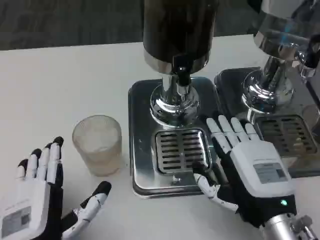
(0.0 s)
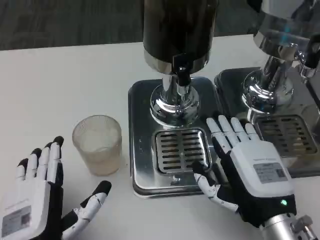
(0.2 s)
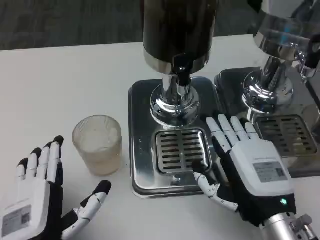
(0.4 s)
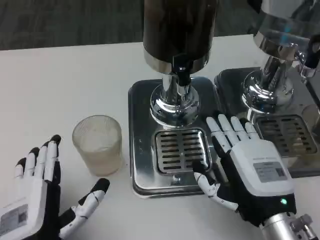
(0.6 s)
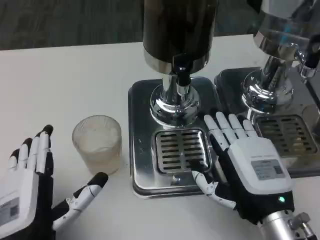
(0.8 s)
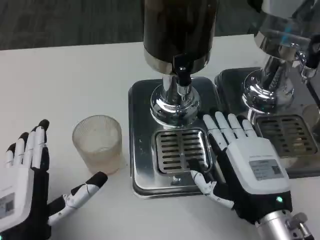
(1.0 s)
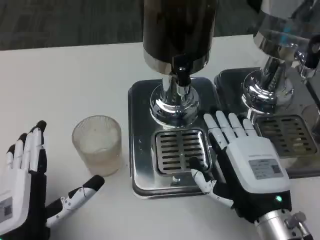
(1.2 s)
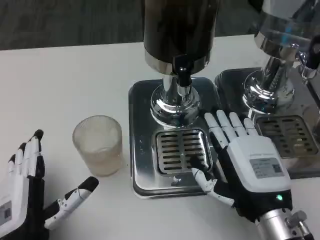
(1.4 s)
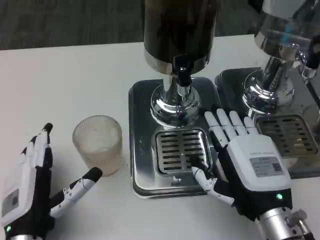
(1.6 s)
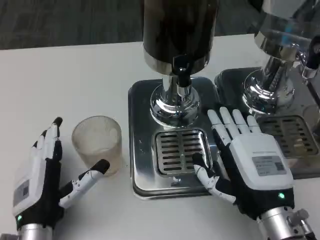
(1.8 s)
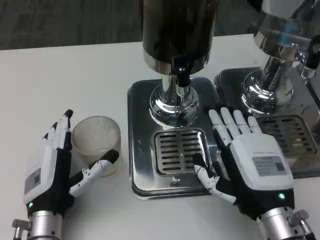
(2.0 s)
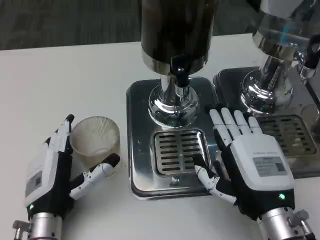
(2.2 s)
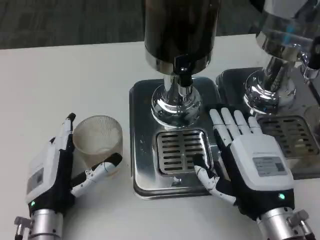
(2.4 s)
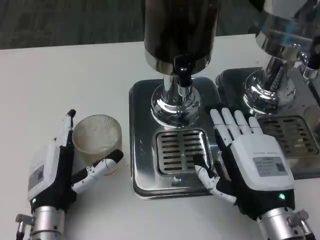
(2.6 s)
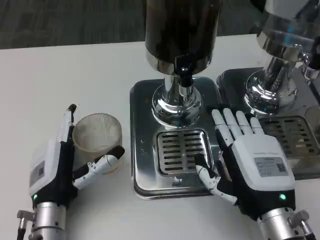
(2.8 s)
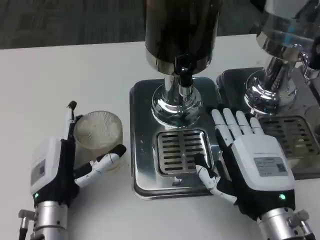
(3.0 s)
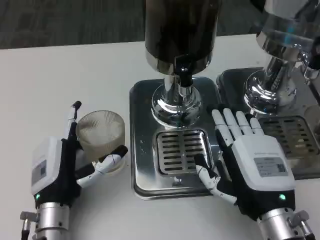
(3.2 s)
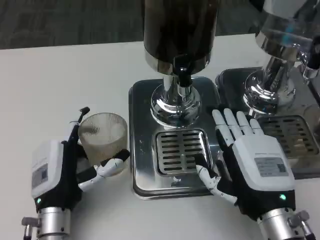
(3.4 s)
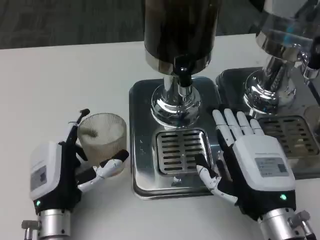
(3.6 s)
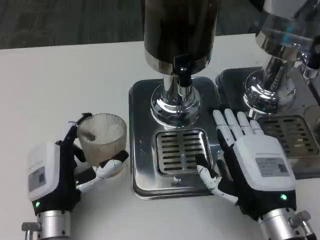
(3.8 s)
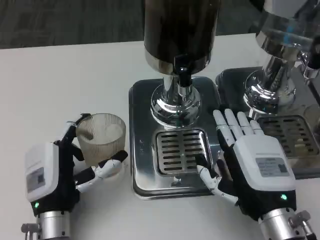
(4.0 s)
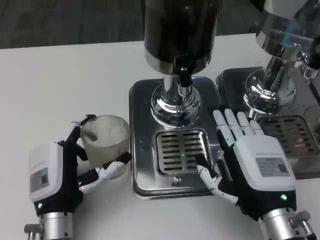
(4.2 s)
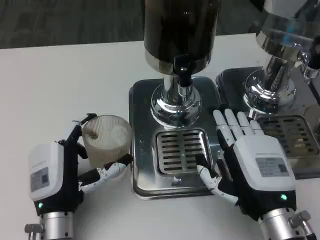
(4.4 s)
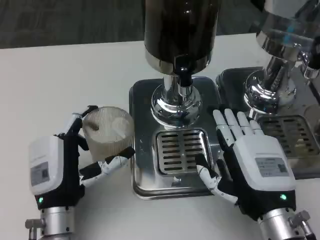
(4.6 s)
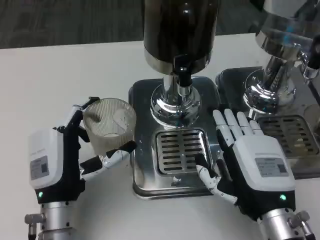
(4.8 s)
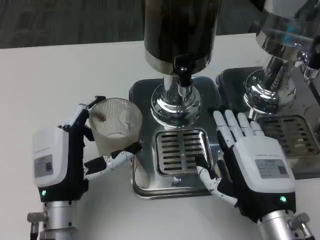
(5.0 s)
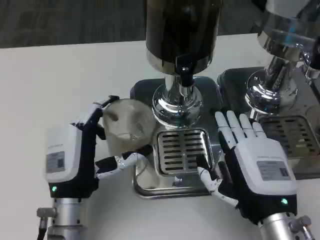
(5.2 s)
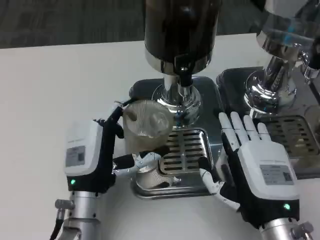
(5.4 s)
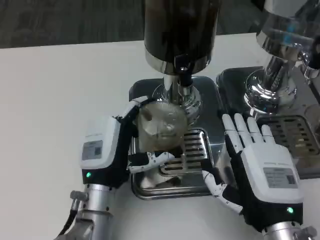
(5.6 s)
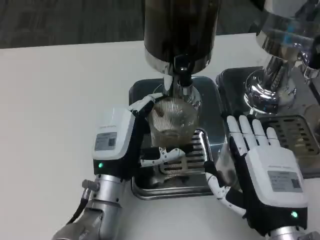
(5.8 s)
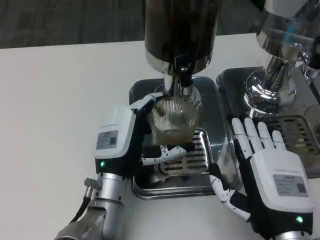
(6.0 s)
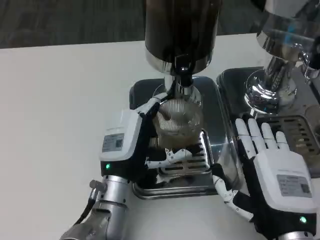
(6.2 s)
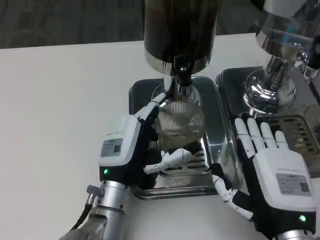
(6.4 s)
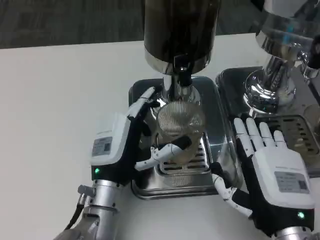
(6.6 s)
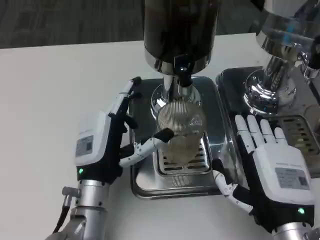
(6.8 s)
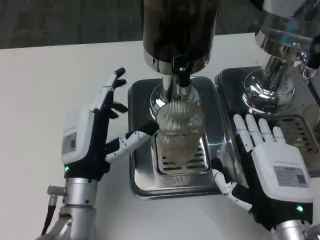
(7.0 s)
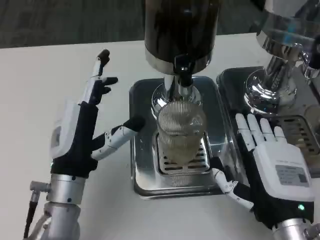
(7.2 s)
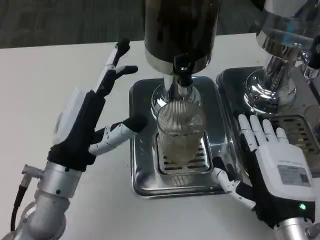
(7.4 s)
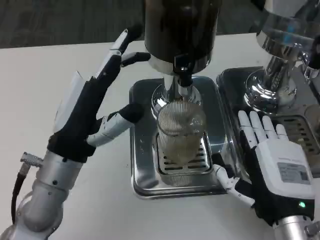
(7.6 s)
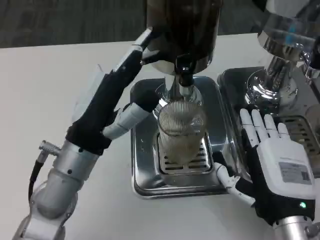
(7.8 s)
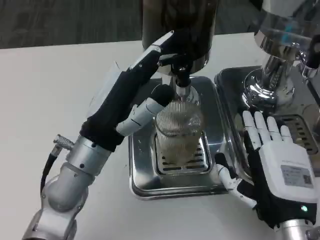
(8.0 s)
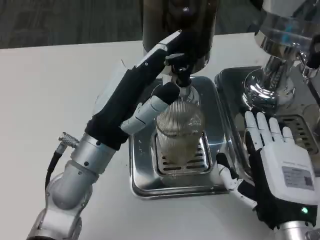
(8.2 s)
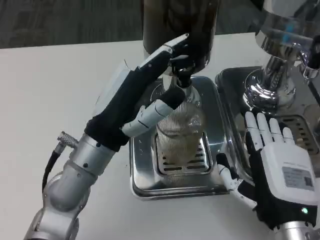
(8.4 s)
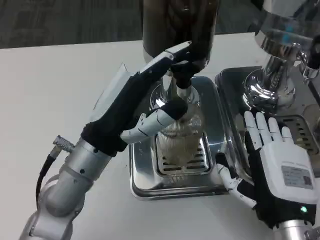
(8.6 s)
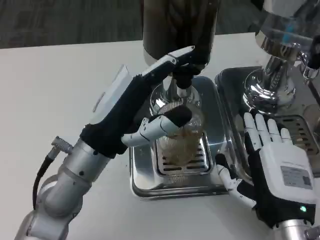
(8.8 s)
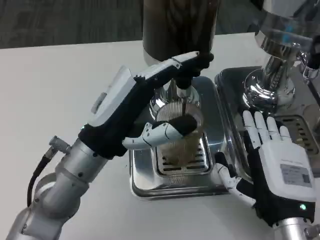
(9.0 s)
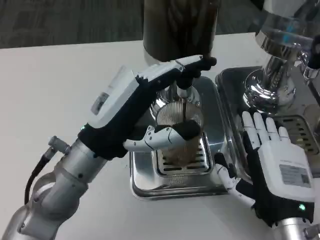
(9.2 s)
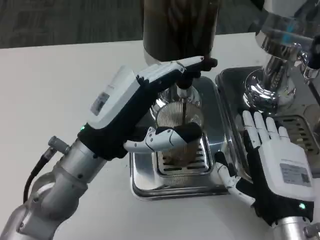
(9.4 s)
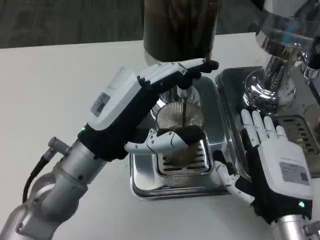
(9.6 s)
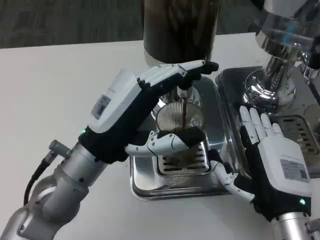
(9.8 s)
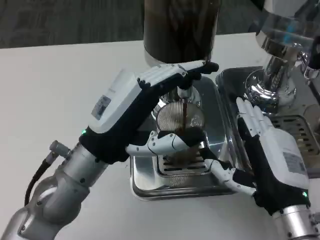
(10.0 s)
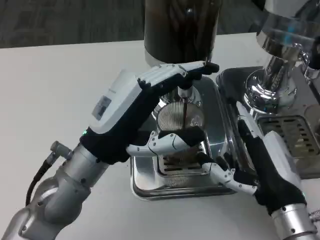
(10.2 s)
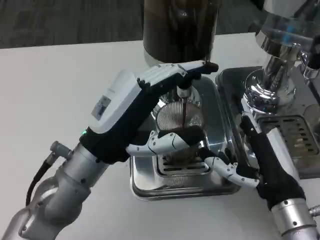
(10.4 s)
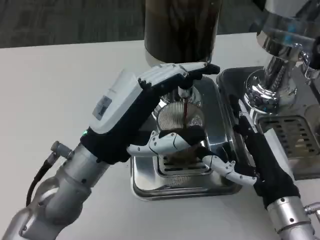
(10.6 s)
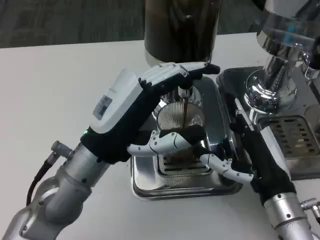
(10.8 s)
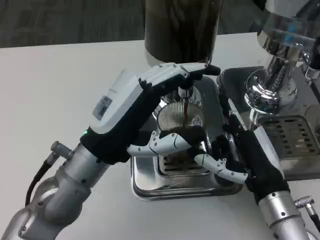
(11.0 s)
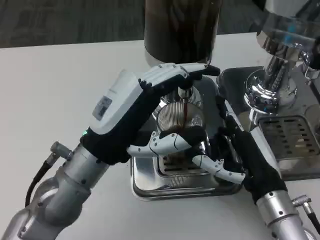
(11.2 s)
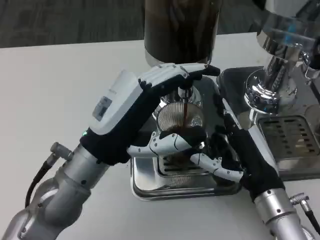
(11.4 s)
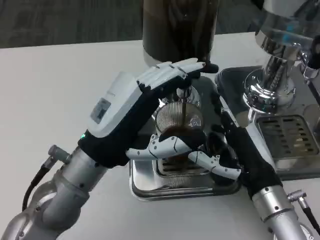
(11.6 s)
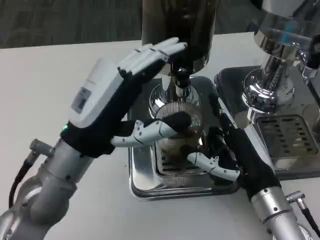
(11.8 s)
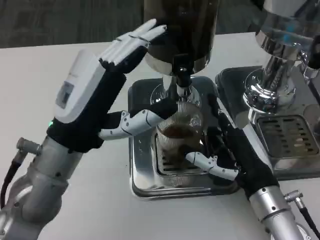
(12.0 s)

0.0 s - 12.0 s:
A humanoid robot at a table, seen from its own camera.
Task of the whole recording: Grasp the cup under the faucet to collect the drink, then remove the cup.
0.0 s - 1.6 s: The left hand travels forward by some 5 cm.
1.6 s - 3.0 s: The left hand moves forward, about 5 cm.
3.0 s - 4.4 s: The hands stay close to where they were, moving slightly.
4.4 s - 6.0 s: The left hand travels to the right and forward by roughly 10 cm.
6.0 s - 7.6 s: The left hand heads upward and to the left, covering roughly 10 cm.

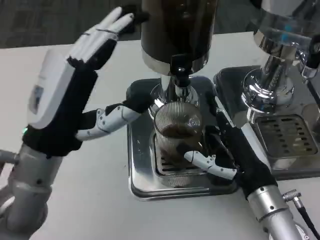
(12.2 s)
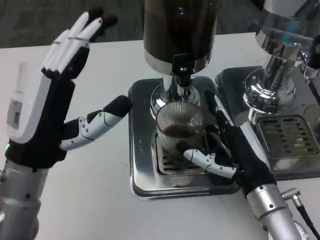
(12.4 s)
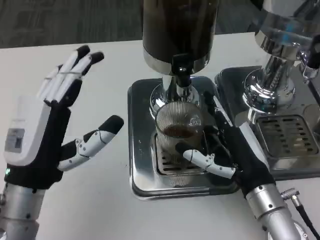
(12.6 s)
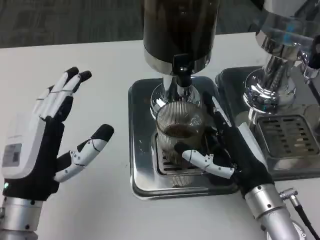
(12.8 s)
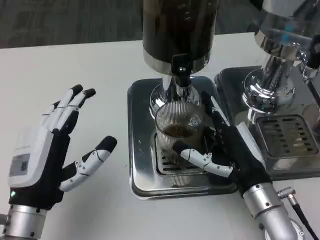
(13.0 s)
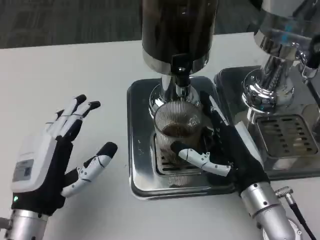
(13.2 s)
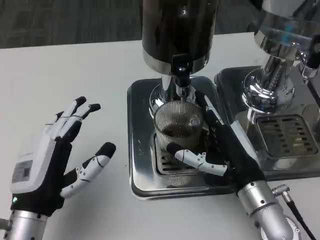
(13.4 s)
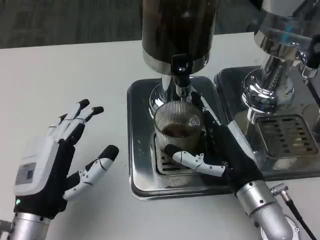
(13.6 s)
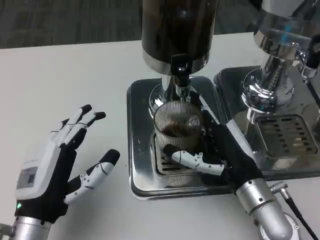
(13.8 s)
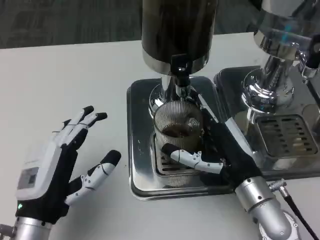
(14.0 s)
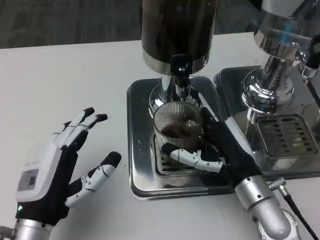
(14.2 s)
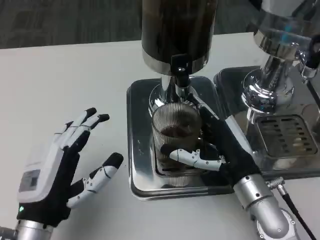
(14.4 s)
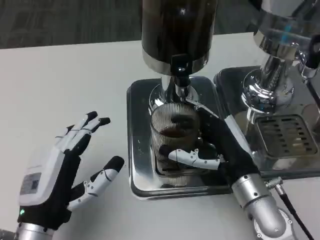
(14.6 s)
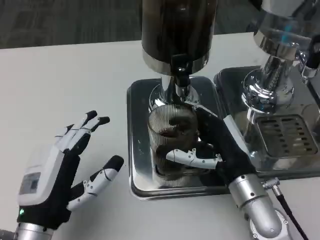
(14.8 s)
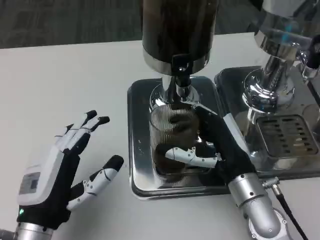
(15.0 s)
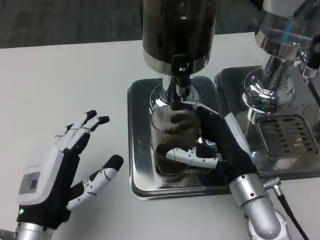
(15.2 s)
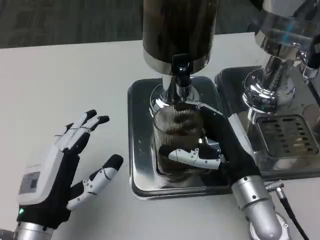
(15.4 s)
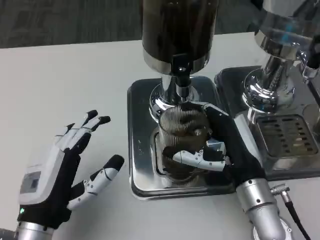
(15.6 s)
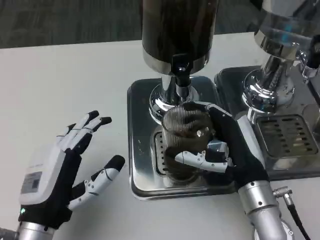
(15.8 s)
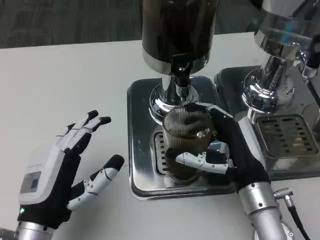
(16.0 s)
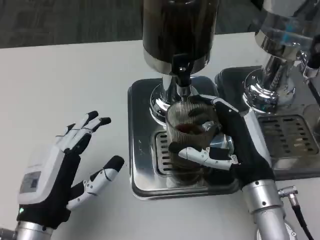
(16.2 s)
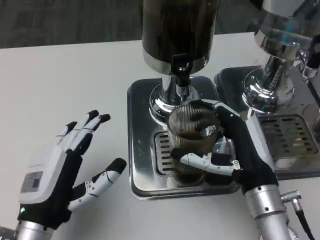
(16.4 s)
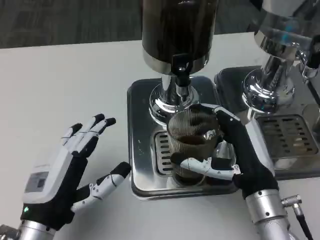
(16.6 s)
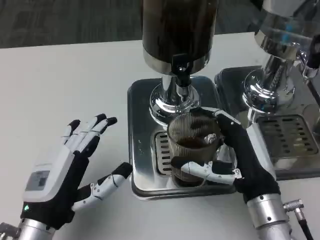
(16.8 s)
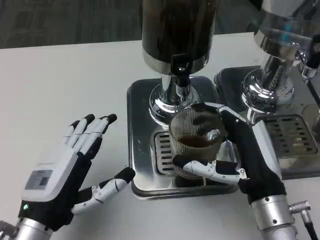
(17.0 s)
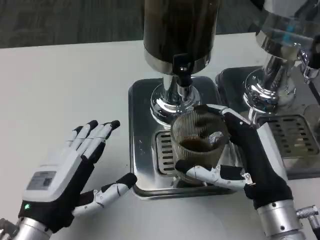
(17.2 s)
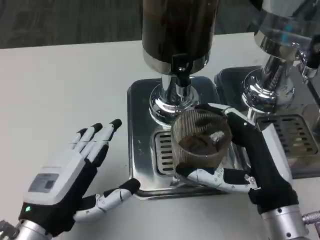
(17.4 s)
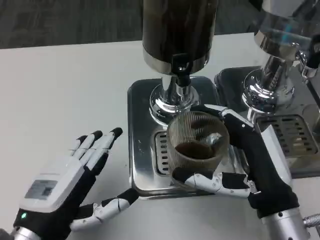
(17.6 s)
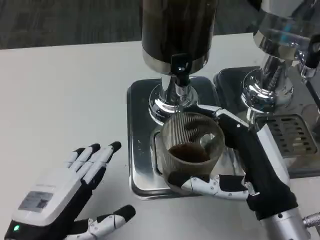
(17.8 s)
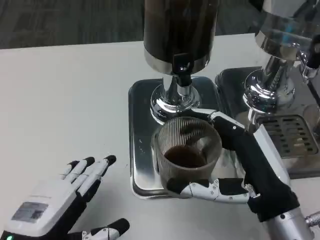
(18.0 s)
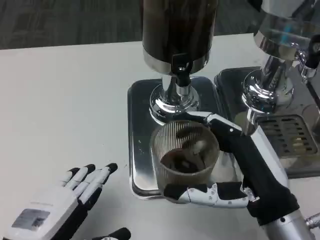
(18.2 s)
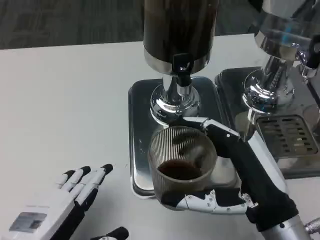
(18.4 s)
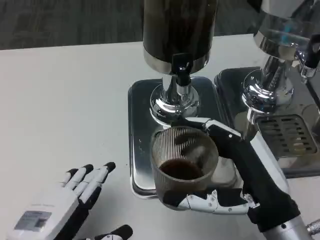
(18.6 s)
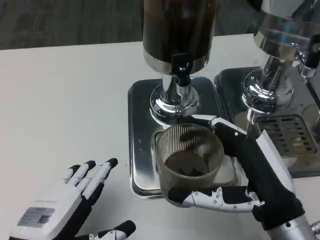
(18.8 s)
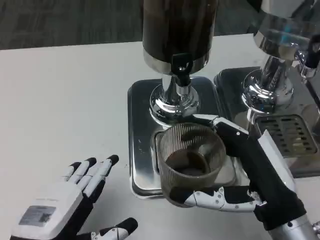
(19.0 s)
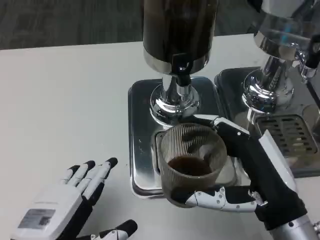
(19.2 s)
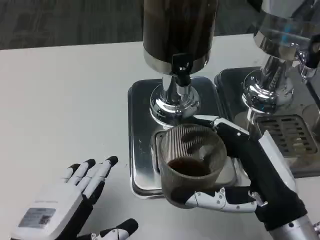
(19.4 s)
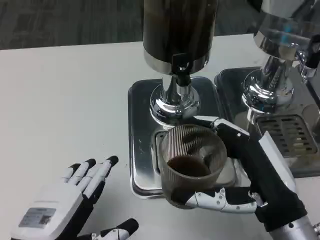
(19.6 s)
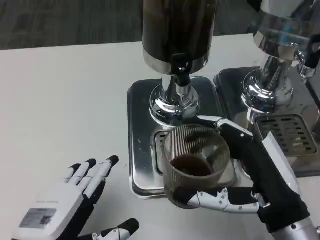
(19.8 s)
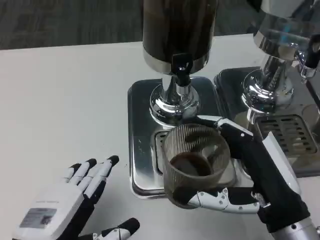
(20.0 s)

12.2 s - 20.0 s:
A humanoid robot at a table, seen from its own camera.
Task of the whole recording: Grasp the cup under the faucet to collect the drink, then remove the cup.
12.2 s - 13.8 s: The left hand is displaced downward and backward by approximately 10 cm.
13.8 s - 16.8 s: The hands stay close to where they were, moving slightly.
16.8 s - 18.4 s: Both hands move backward, roughly 5 cm.
18.4 s - 20.0 s: The hands move only a little.

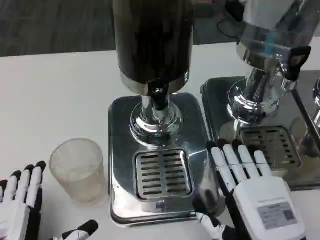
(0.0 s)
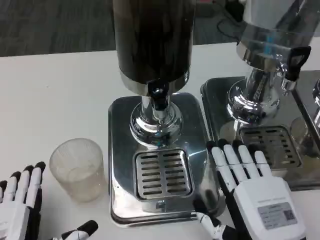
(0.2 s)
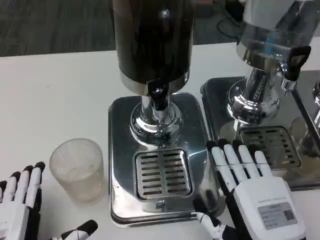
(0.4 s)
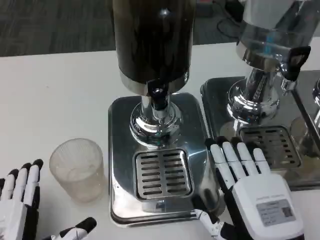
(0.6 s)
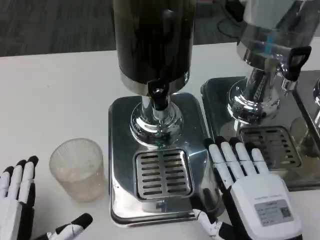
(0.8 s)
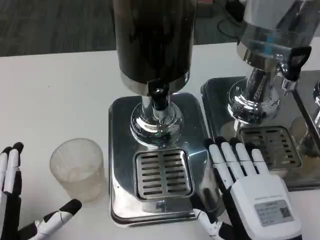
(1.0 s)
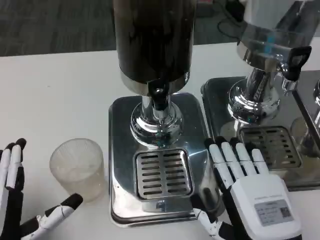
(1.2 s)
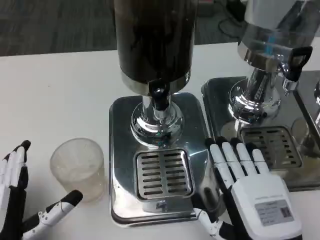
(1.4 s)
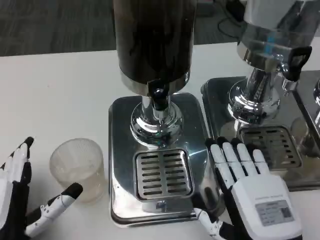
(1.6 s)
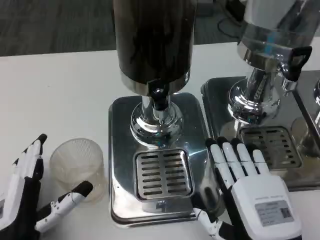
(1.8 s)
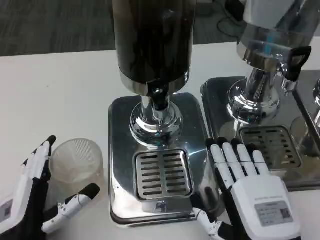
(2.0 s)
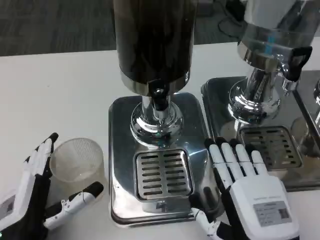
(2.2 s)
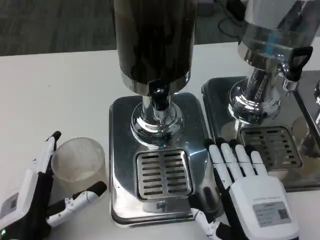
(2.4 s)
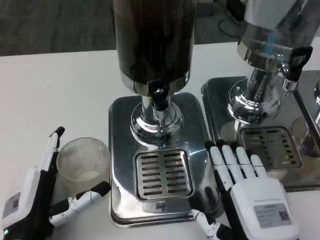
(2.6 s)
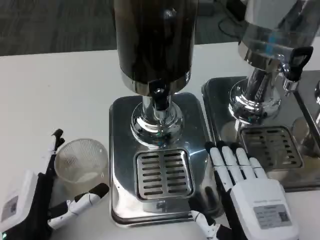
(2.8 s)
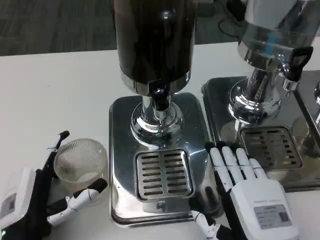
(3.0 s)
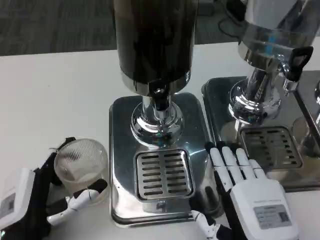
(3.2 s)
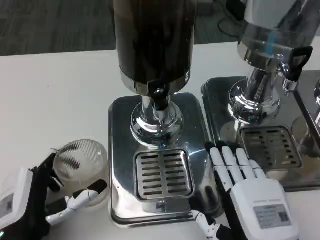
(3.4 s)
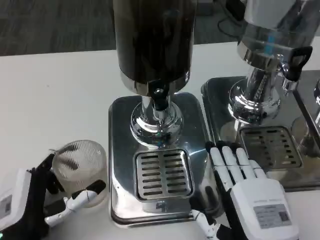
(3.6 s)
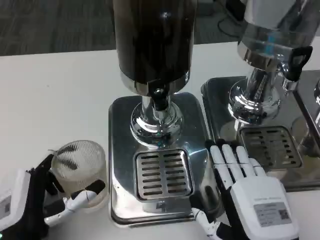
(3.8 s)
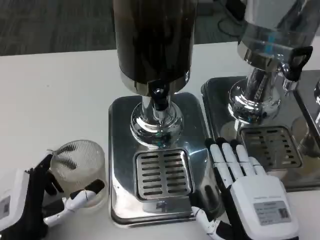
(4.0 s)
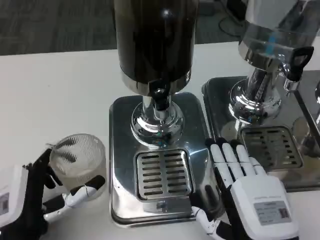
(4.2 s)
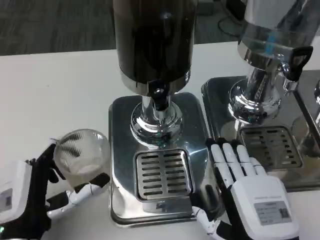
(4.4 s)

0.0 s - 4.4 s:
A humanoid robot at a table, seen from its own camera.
Task of the whole recording: Grasp the cup under the faucet to collect the drink, then remove the cup.
1.4 s - 4.4 s: The hands stay close to where they were, moving slightly.
